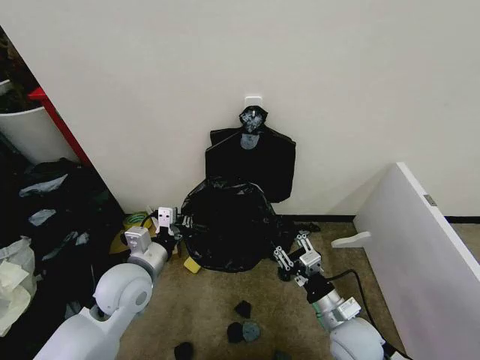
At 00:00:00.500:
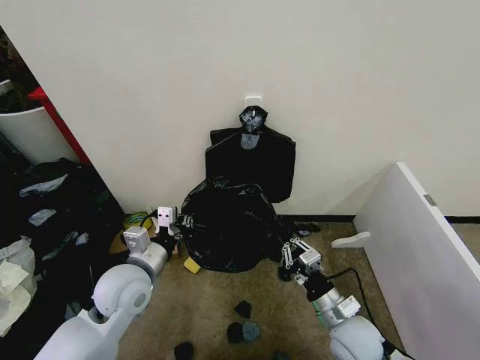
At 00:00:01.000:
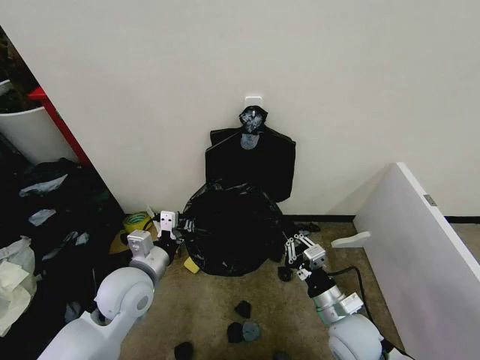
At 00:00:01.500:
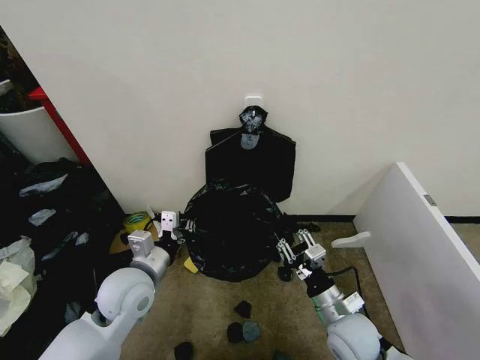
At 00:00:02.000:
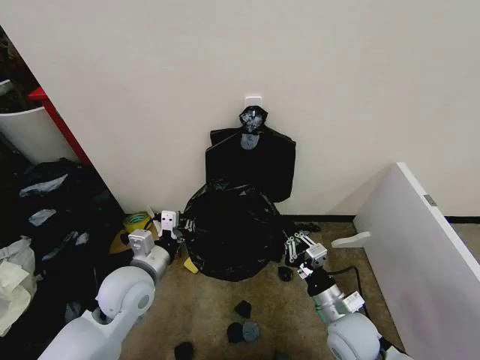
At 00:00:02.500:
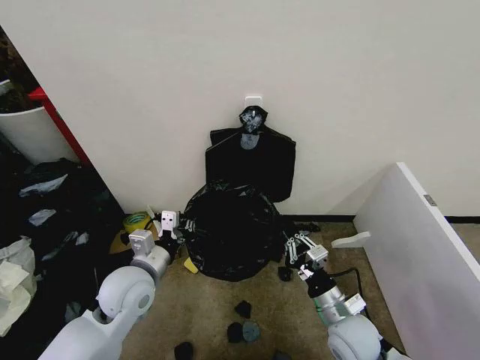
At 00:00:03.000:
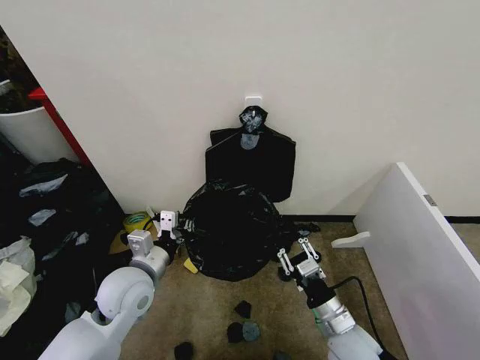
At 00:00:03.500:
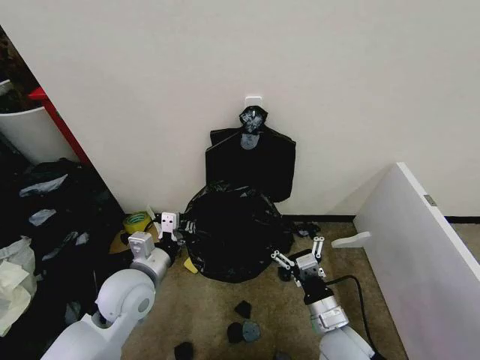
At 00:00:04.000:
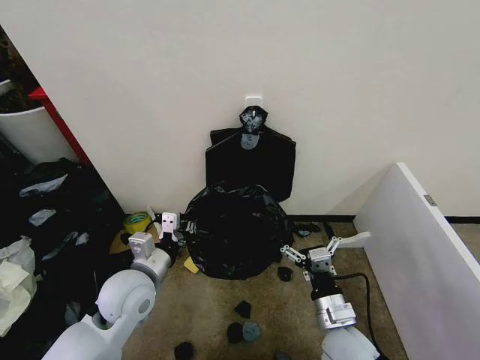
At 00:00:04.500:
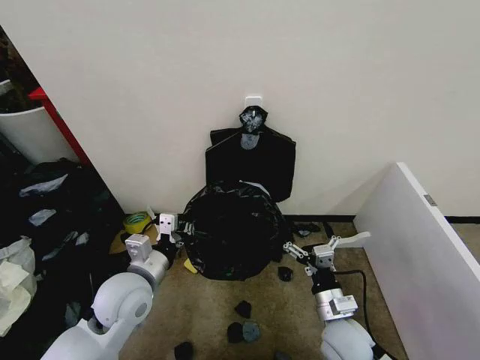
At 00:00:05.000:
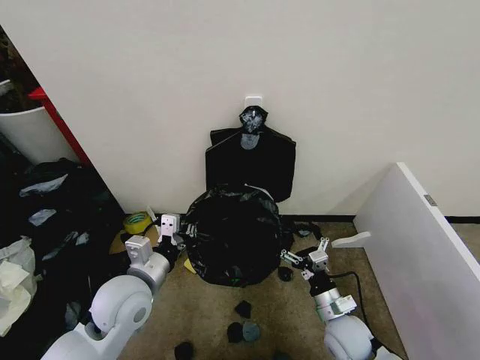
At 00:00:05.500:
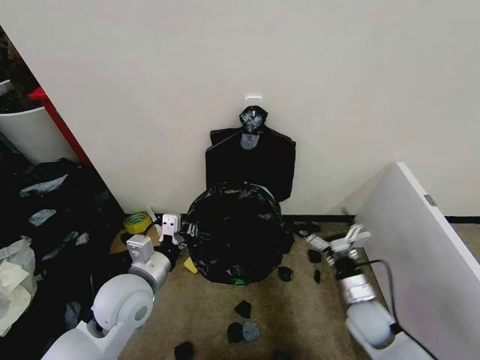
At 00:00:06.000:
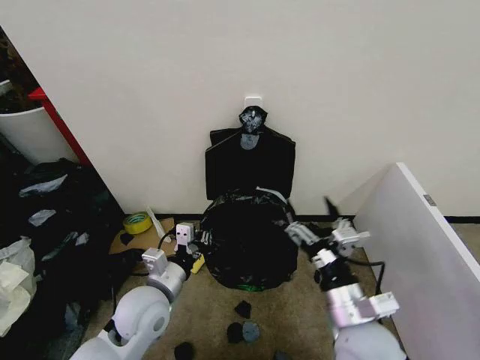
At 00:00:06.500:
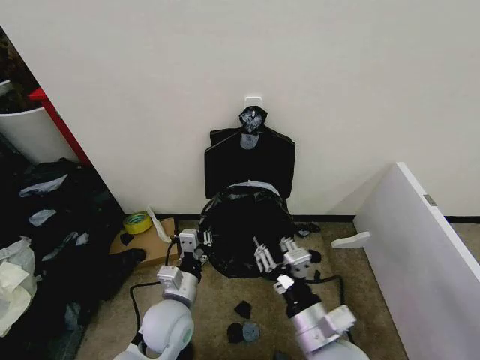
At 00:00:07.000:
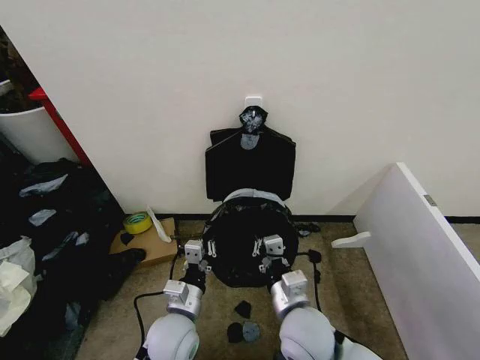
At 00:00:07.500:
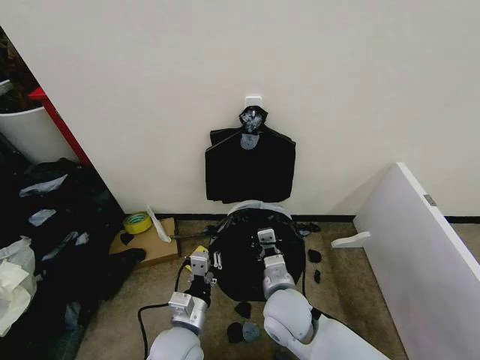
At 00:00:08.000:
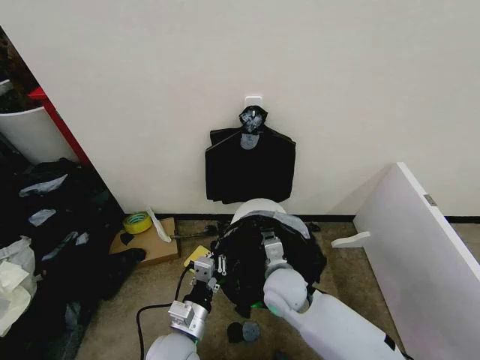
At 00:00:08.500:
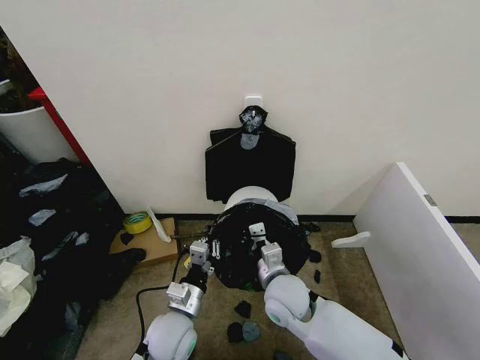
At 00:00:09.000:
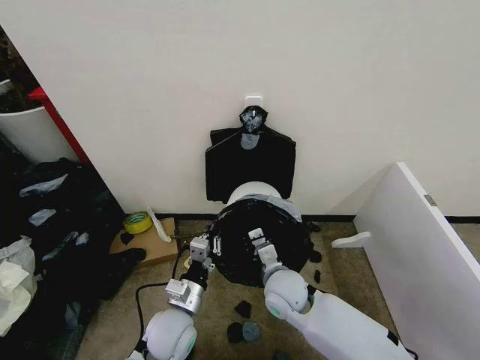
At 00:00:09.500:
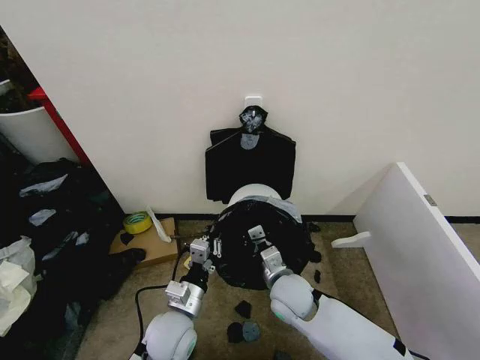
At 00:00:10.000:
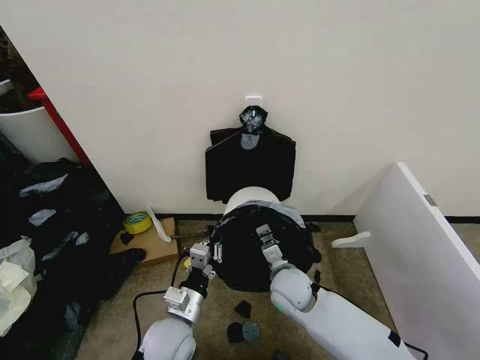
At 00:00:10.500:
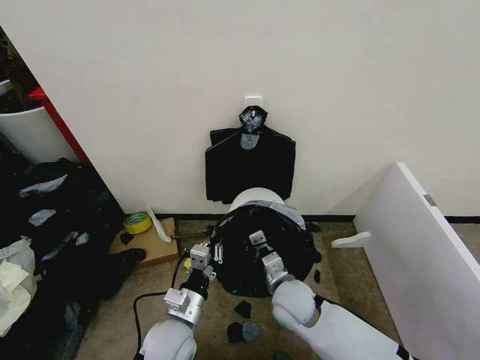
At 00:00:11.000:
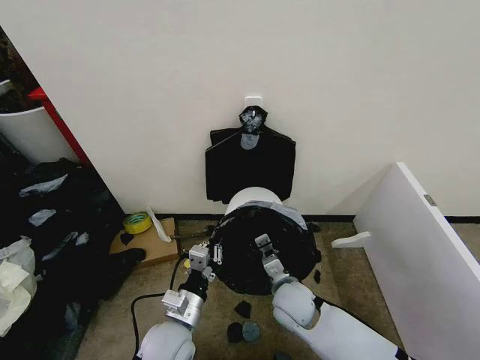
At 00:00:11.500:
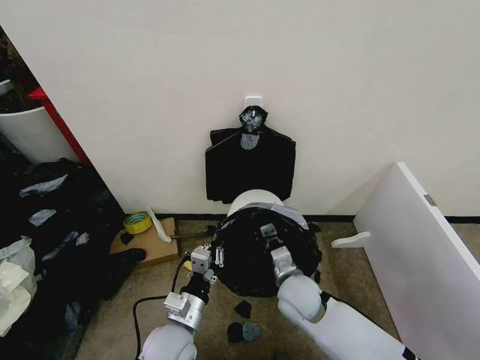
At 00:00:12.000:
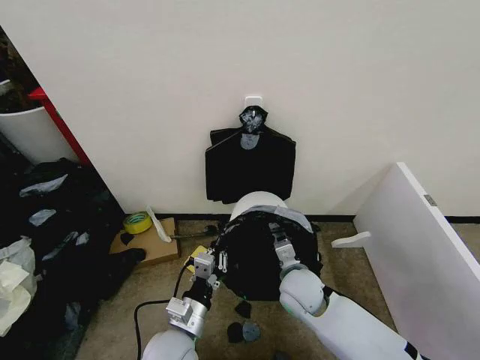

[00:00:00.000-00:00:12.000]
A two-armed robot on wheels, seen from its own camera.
Task of the whole recording: Place the garbage bag over the trash bin.
00:00:00.000 to 00:00:02.000: The right gripper closes its fingers.
00:00:02.000 to 00:00:04.000: The right gripper opens.
00:00:04.000 to 00:00:06.000: The right gripper is displaced upward by some 10 cm.
00:00:06.000 to 00:00:08.000: The right gripper is displaced forward, to the left and downward by about 20 cm, and closes up; the left gripper goes some 10 cm downward, backward and to the right.
00:00:08.000 to 00:00:12.000: There are only small adjustments of the grippers.

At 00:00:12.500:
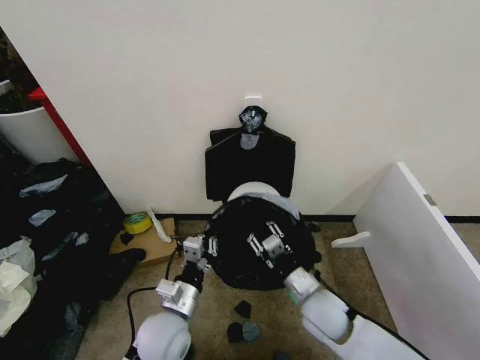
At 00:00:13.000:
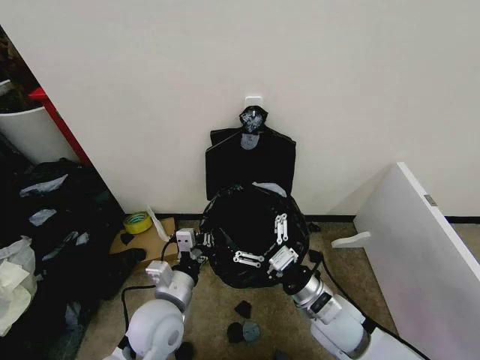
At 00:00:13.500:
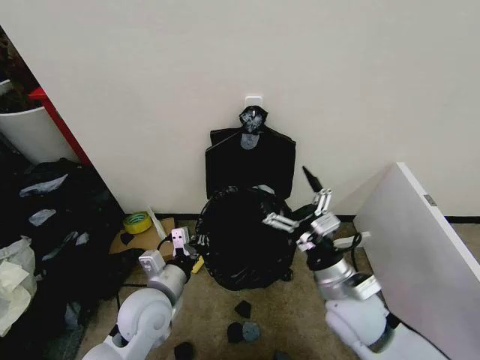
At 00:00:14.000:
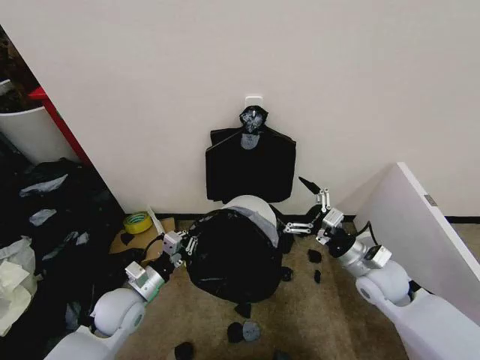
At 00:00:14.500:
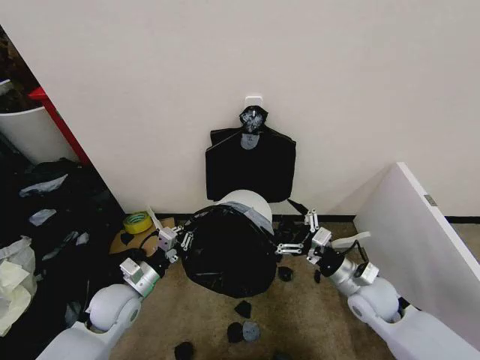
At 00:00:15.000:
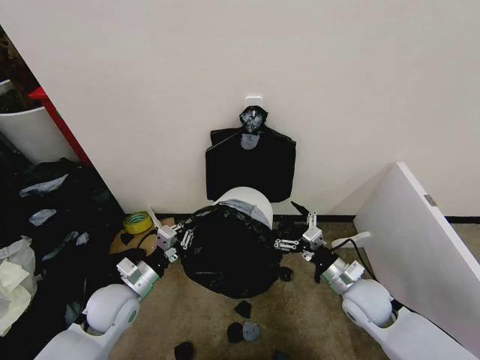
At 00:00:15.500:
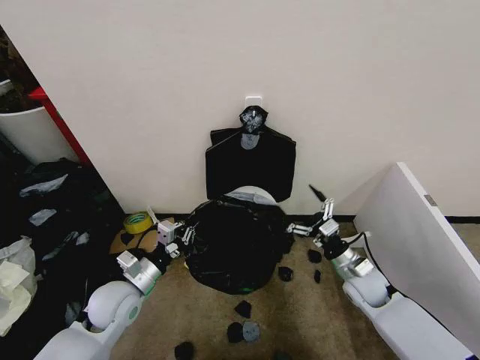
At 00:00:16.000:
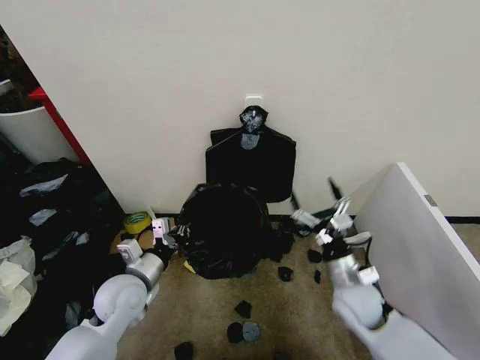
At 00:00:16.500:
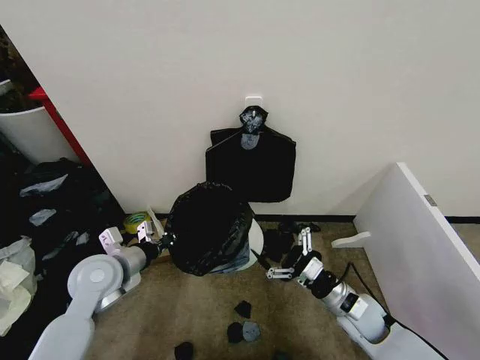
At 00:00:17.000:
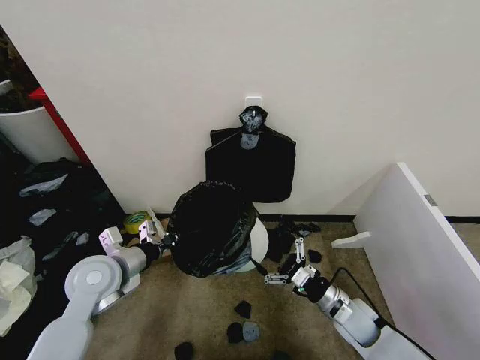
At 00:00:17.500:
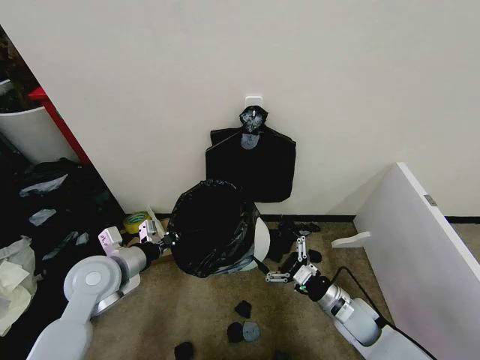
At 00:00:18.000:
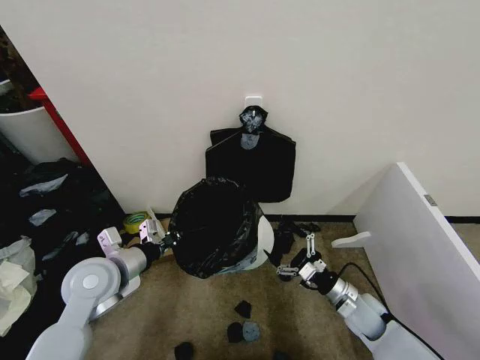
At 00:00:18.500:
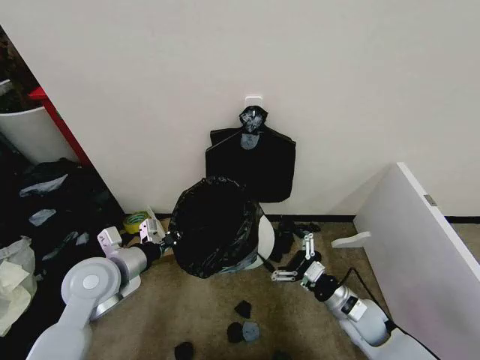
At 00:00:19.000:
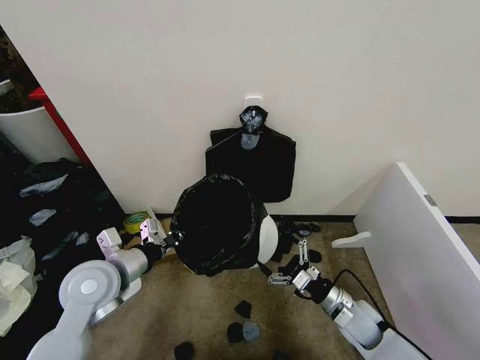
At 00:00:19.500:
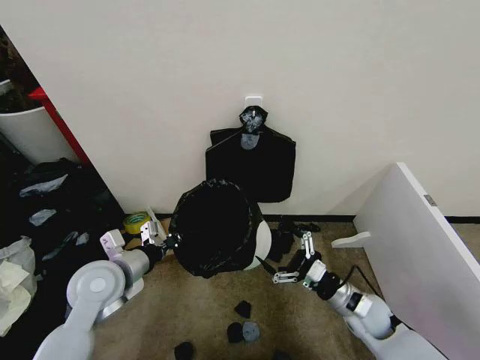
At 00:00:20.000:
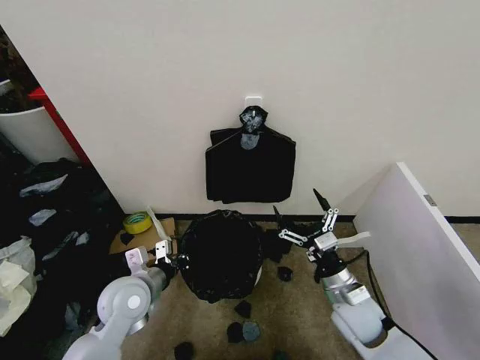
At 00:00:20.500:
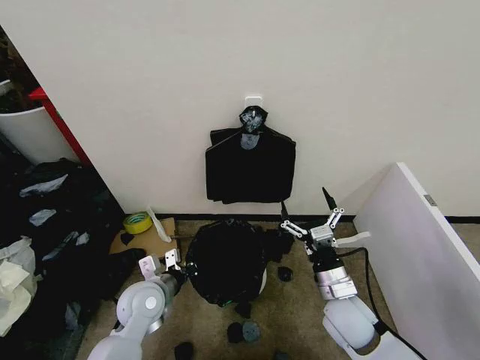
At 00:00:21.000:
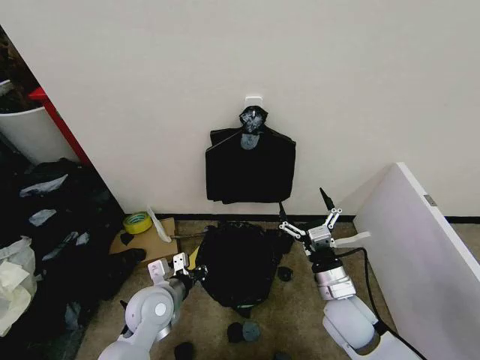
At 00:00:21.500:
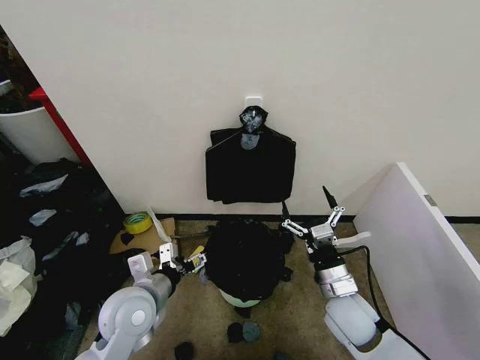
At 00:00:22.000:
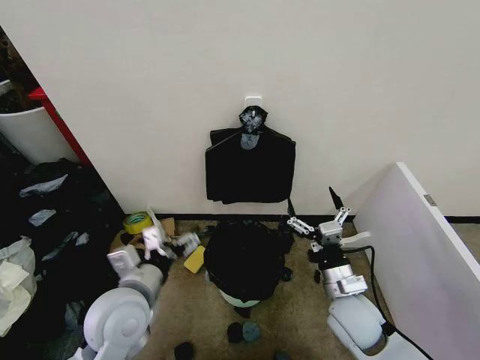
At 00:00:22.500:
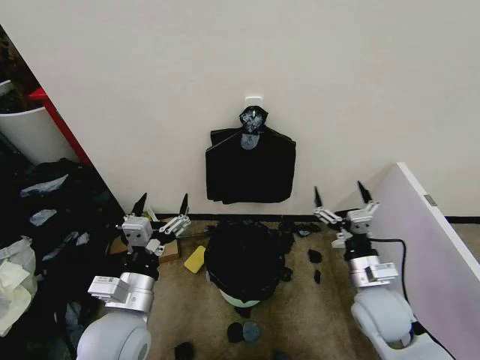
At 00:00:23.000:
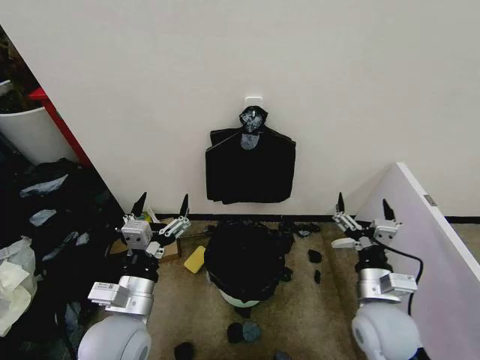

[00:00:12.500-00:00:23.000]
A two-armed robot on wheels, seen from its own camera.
Task of the whole recording: Place the garbage bag over the trash bin.
00:00:12.500 to 00:00:14.500: The right gripper travels to the right by about 10 cm, and opens up. The left gripper is displaced to the left and forward by about 15 cm.
00:00:14.500 to 00:00:16.500: The left gripper is displaced upward by roughly 10 cm. The right gripper moves about 5 cm.
00:00:16.500 to 00:00:19.000: The right gripper changes place by roughly 5 cm.
00:00:19.000 to 00:00:21.000: The right gripper moves upward and to the left, some 10 cm, while the left gripper shifts approximately 15 cm downward and to the right.
00:00:21.000 to 00:00:23.000: The right gripper ends up approximately 5 cm from where it was. Meanwhile the left gripper moves upward and backward, roughly 10 cm, and opens its fingers.
